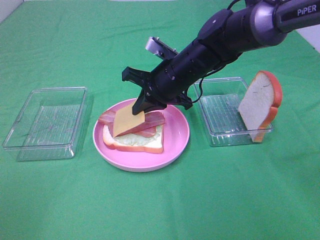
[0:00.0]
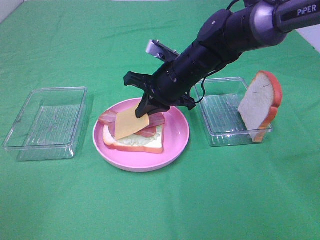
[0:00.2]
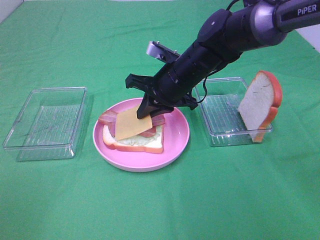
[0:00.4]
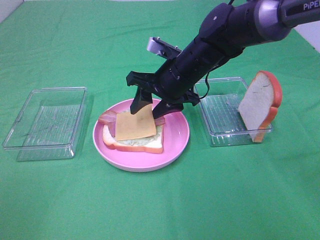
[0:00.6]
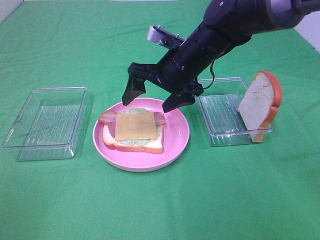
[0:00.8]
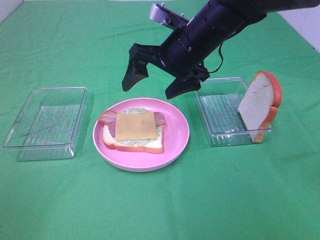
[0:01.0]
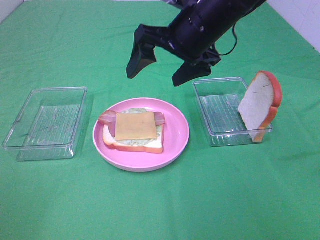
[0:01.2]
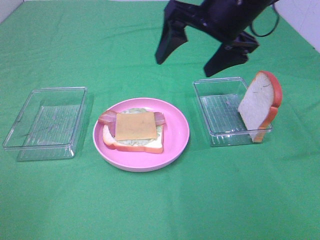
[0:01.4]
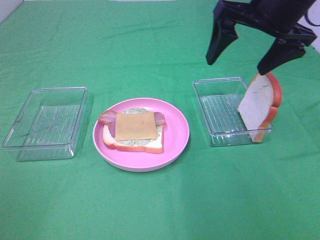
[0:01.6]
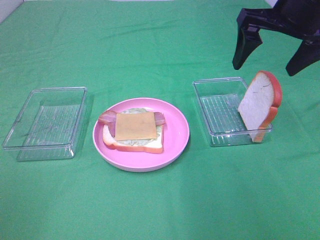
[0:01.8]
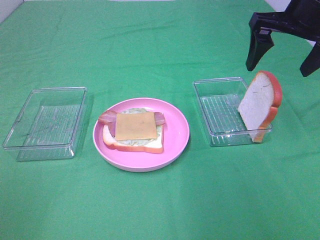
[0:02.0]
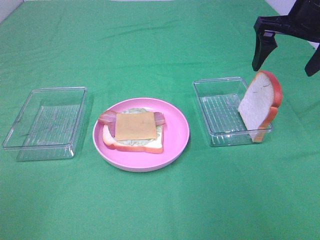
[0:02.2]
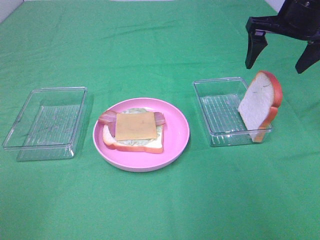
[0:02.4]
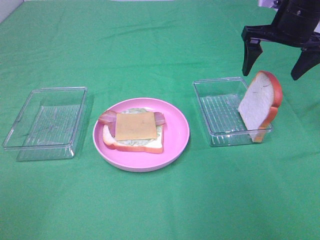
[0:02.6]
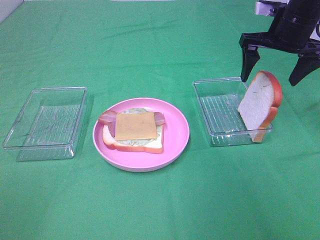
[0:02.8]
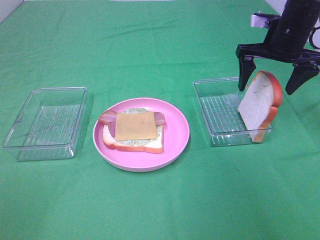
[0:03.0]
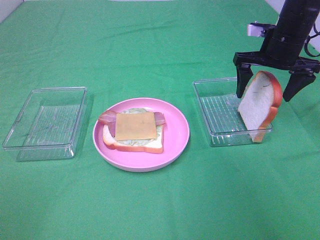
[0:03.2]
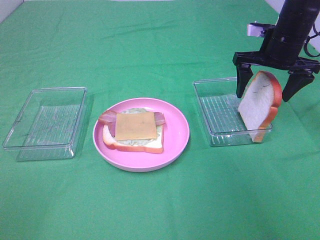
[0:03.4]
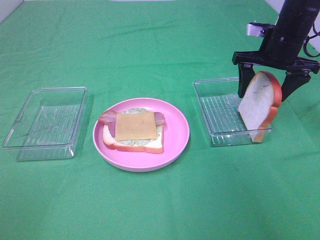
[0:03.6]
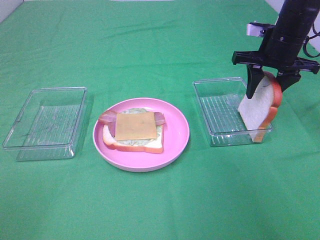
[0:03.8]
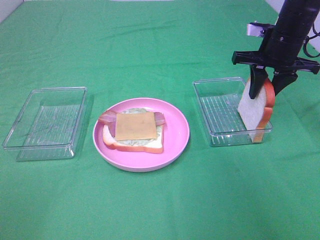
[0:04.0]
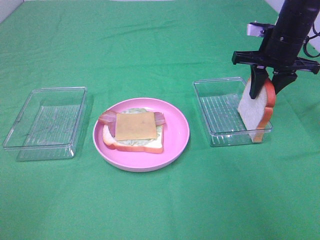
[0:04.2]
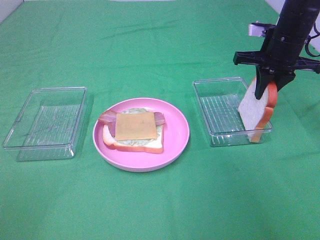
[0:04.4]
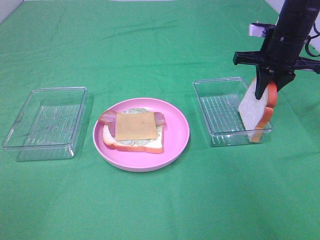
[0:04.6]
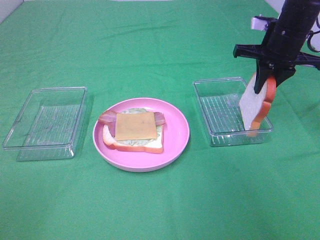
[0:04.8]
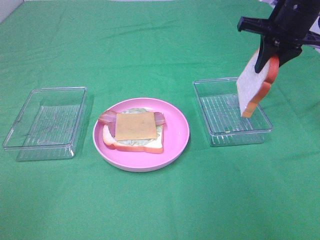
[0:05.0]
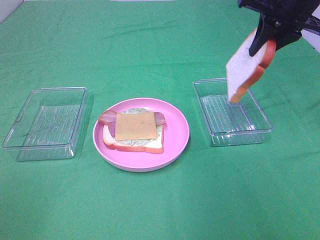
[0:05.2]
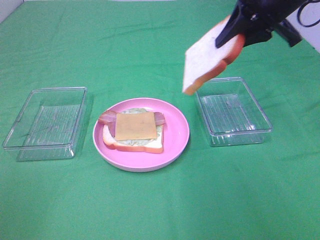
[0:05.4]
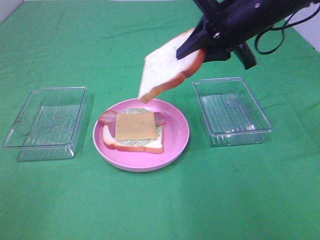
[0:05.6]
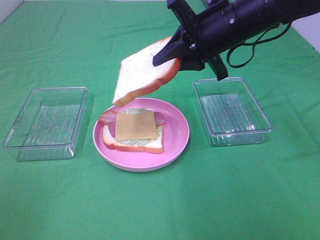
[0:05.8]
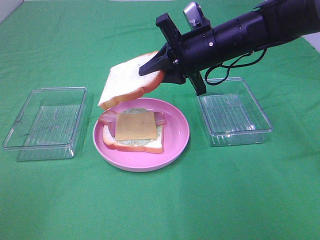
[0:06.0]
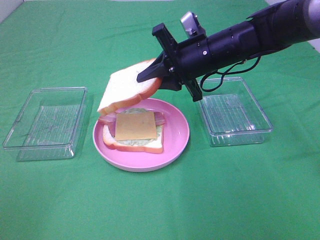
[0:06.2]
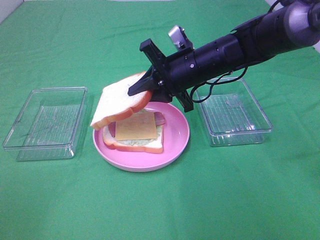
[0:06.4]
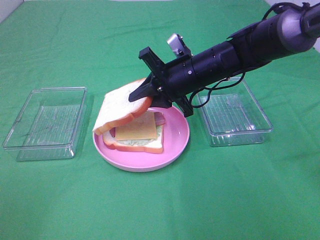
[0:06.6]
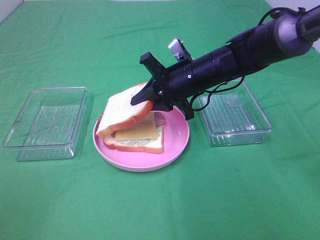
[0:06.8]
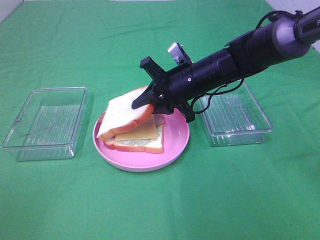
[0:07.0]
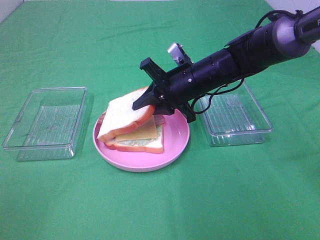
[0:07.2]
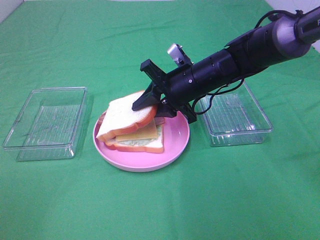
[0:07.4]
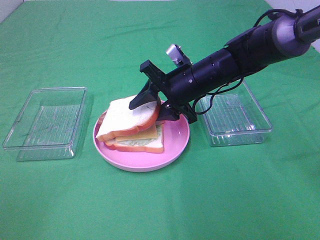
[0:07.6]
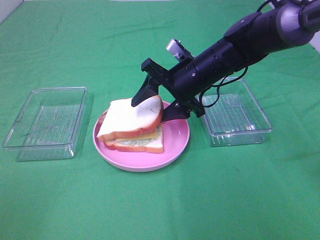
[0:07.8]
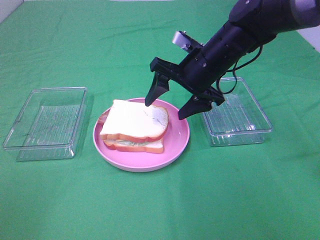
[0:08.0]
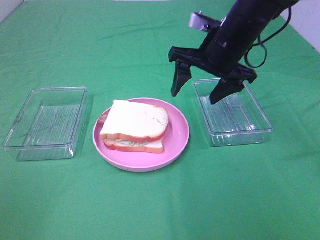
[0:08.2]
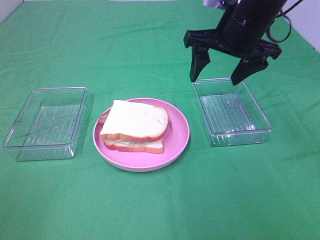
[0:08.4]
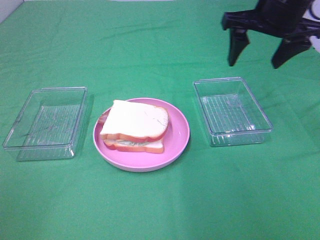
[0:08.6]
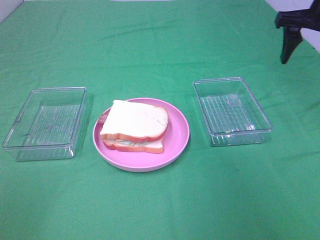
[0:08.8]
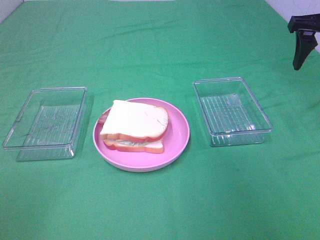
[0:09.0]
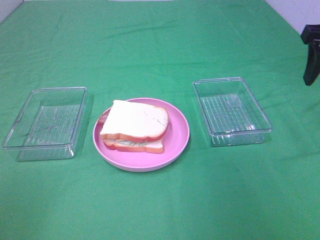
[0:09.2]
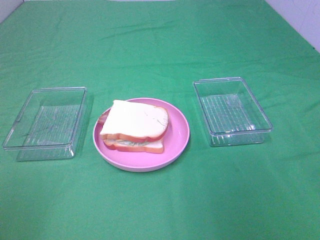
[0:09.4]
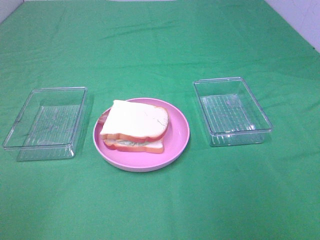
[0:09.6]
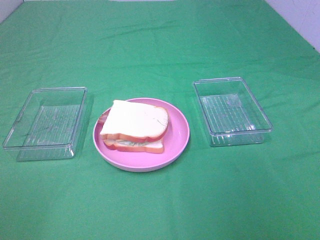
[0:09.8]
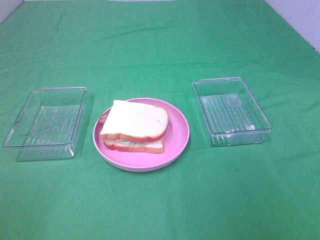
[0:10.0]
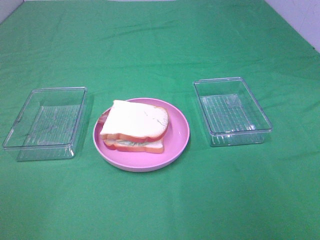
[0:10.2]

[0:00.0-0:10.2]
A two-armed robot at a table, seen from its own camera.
Task of the whole recording: Make sandwiches.
Step, 0:00.8 to 0:04.4: Right hand:grab the bread slice.
Step, 0:04.6 to 0:08.0: Right hand:place the bread slice on the cheese slice.
0:00.0 to 0:01.4: The right gripper goes about 15 cm upward and to the right, and opens its fingers.
0:01.4 to 0:03.0: The right gripper is displaced to the right, forward and downward by roughly 15 cm.
0:03.0 to 0:04.4: The right gripper closes.
0:04.4 to 0:05.8: The right gripper moves to the left and backward, approximately 15 cm.
0:05.8 to 0:07.2: The right gripper shifts some 10 cm downward.
0:07.2 to 0:08.8: The right gripper shifts approximately 25 cm to the right and upward, and opens its fingers.
0:08.8 to 0:10.2: The right gripper goes some 35 cm backward.

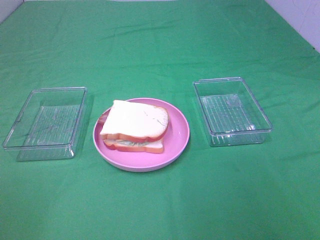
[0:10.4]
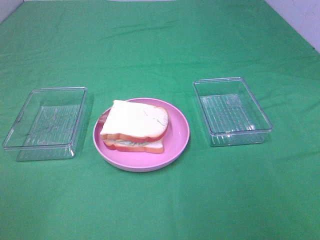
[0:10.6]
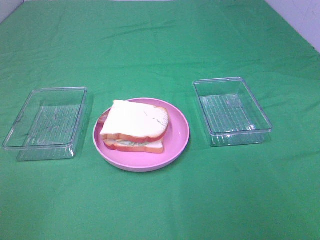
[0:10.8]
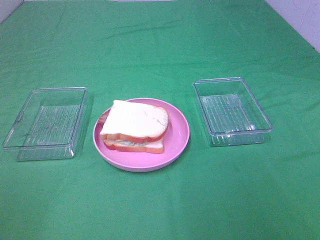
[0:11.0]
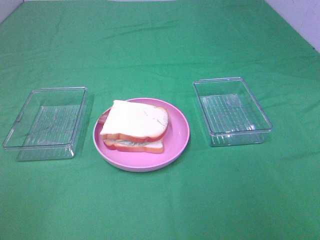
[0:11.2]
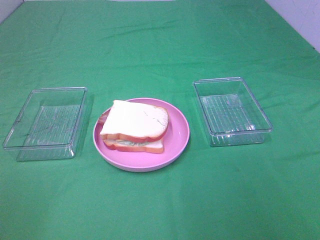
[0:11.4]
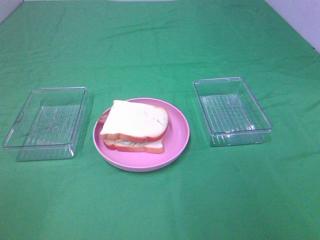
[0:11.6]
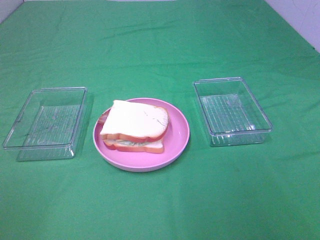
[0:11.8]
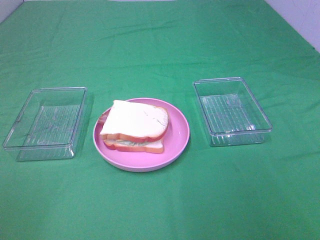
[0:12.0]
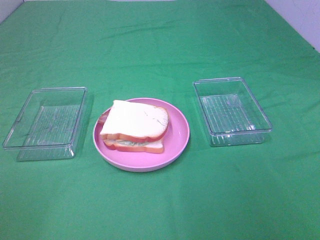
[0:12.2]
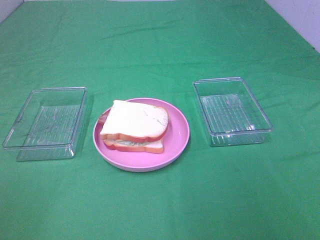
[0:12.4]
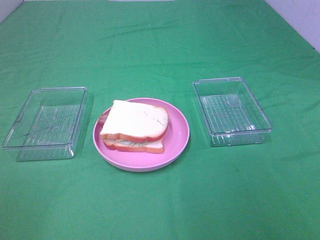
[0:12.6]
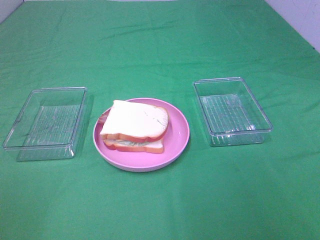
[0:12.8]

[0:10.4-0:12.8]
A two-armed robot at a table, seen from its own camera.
Task of the whole recording: Make sandwiches.
0:10.4 to 0:12.8: Neither gripper changes place.

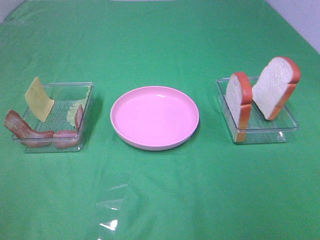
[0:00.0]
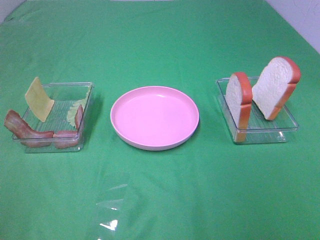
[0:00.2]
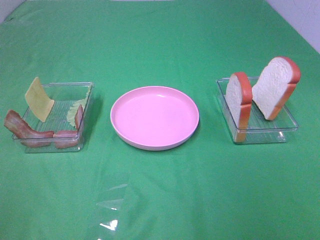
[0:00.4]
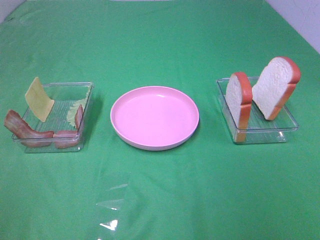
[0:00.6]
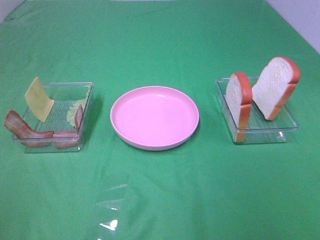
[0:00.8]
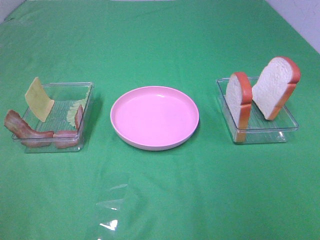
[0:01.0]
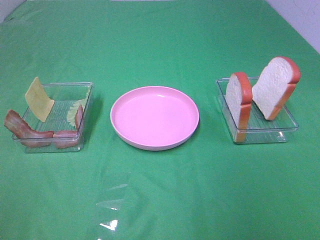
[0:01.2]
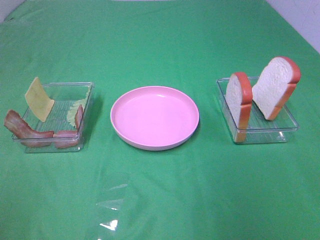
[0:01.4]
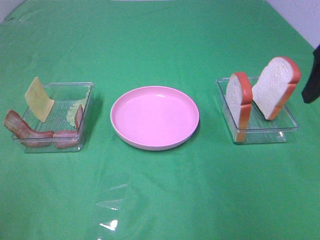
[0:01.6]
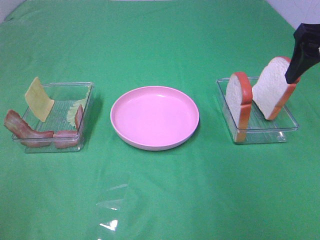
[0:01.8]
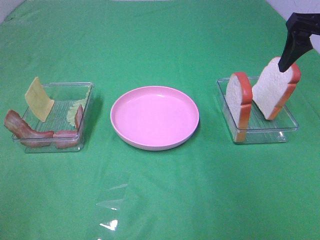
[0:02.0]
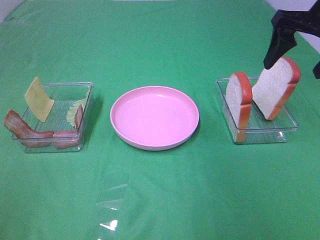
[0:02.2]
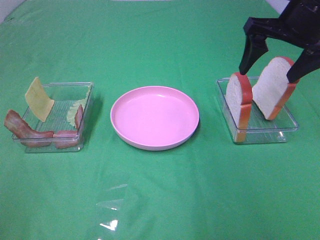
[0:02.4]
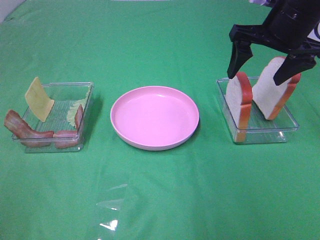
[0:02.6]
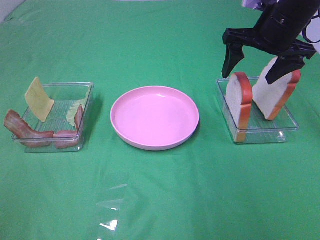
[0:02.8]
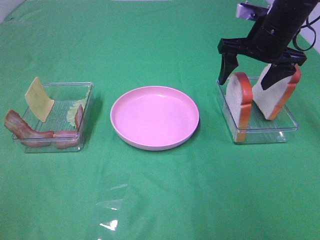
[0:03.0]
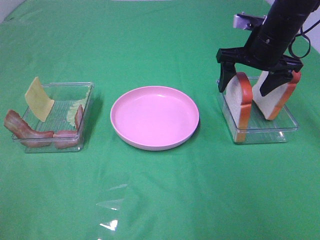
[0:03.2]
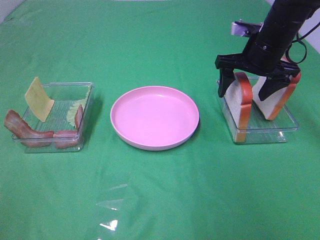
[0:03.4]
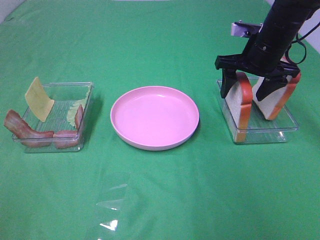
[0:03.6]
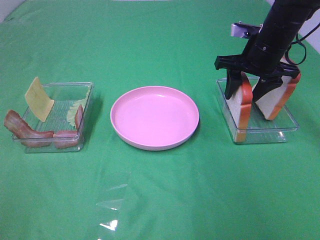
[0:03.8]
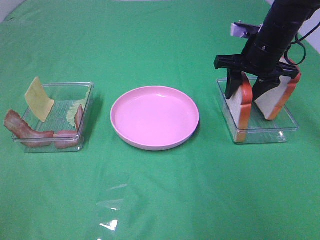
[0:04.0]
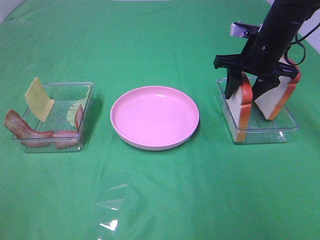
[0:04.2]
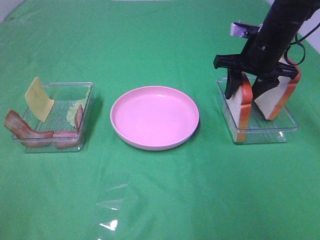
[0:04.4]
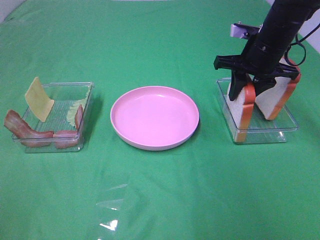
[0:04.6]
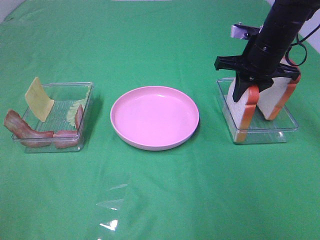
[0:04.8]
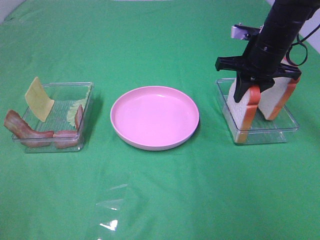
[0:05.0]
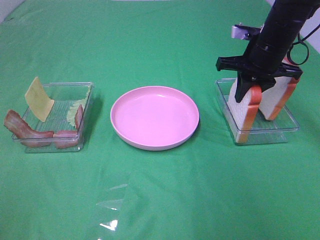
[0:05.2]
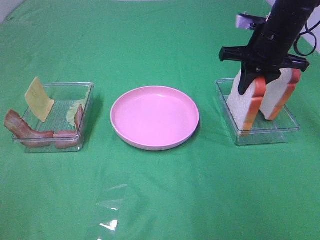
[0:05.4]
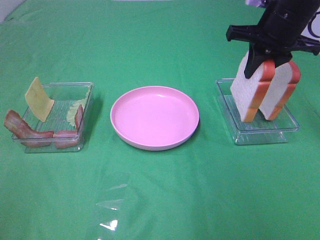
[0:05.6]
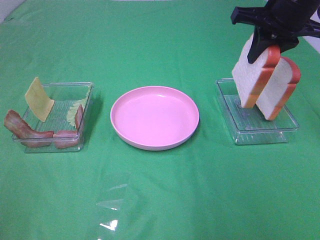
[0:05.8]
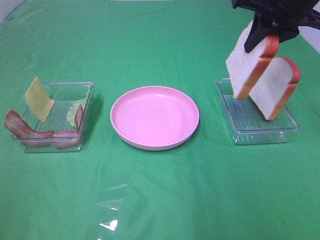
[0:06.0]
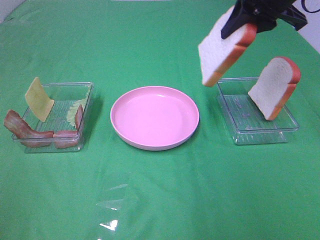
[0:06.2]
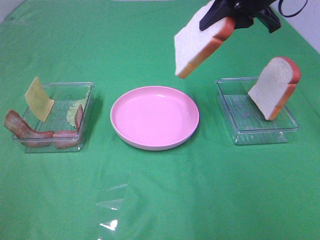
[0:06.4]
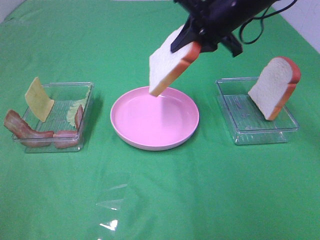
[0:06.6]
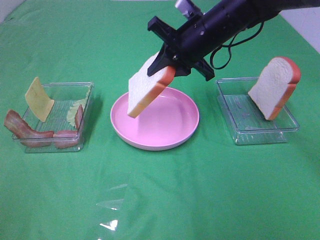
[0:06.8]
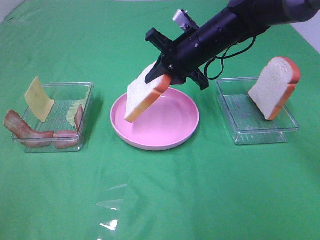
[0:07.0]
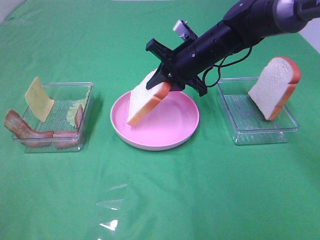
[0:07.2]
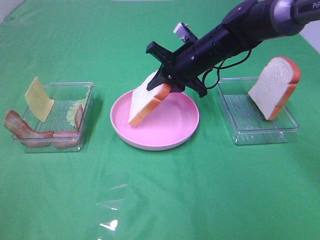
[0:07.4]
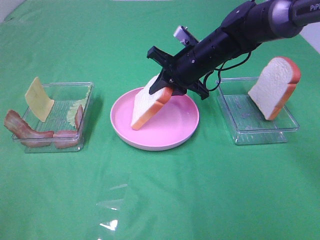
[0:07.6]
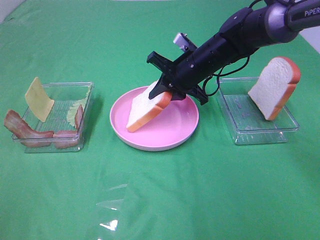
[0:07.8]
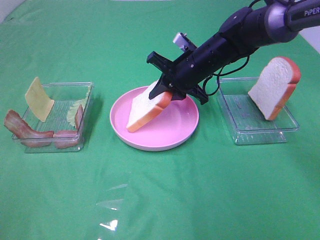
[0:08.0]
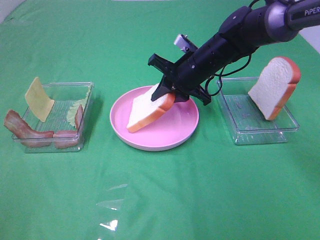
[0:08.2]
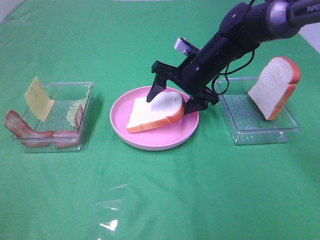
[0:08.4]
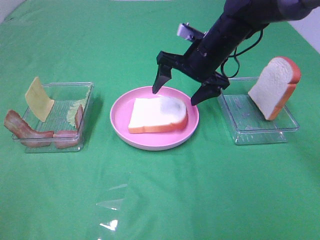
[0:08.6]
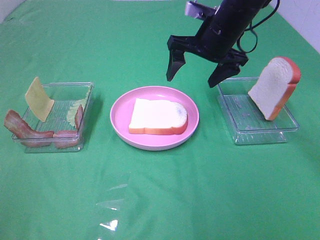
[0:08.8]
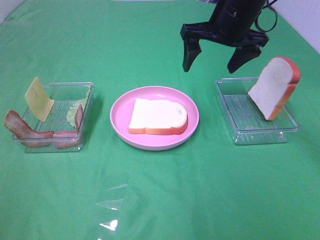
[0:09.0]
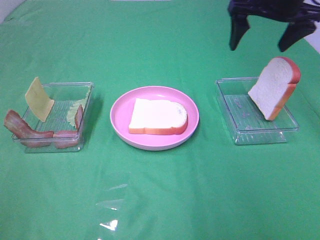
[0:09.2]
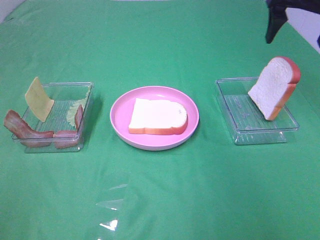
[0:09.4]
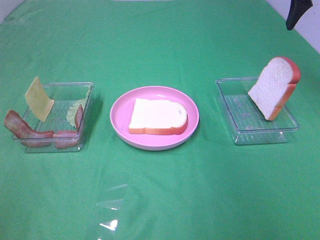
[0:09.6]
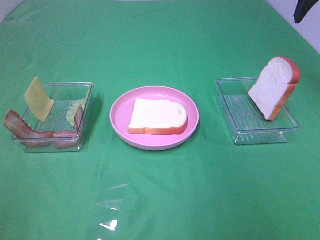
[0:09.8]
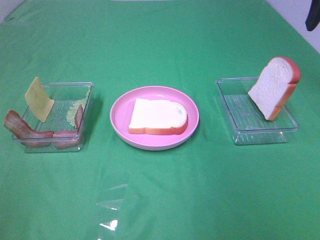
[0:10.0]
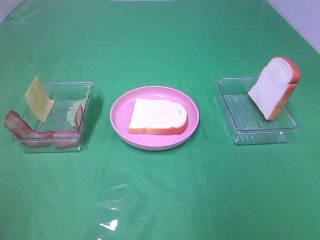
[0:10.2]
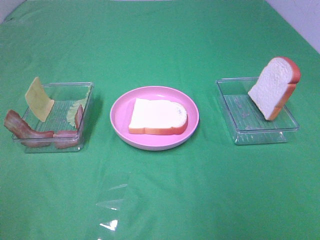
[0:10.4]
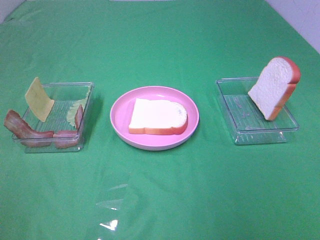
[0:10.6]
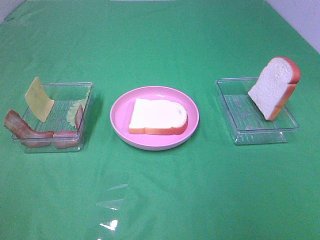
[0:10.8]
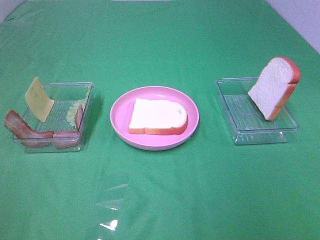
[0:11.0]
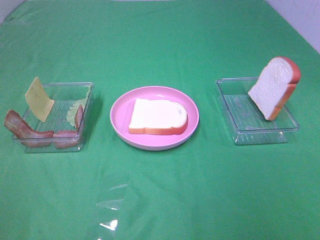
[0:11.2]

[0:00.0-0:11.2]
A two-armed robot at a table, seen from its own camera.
Task of the whole recording: Make sandwiches.
Step, 0:00.0 to 0:04.8: Right hand:grab the bread slice.
Step, 0:05.0 to 0:08.6: Right hand:place the bread slice on the plate.
0:00.0 to 0:01.6: The right gripper travels forward by some 25 cm.
0:01.6 to 0:03.2: The right gripper shifts about 20 cm forward, downward and to the left.
0:03.2 to 0:04.8: The right gripper closes up.
0:04.8 to 0:06.4: The right gripper travels upward by approximately 10 cm.
0:06.4 to 0:08.0: The right gripper is displaced downward and to the left by approximately 20 cm.
0:08.0 to 0:09.6: The right gripper goes approximately 30 cm upward and to the right, and opens up.
